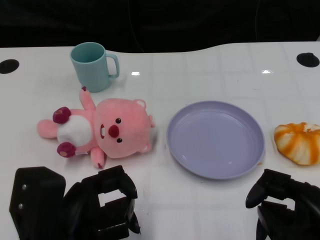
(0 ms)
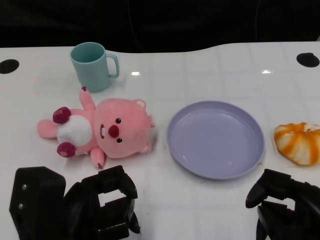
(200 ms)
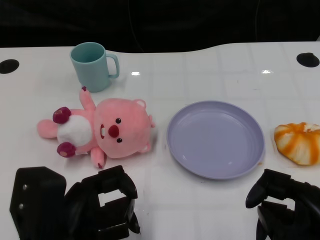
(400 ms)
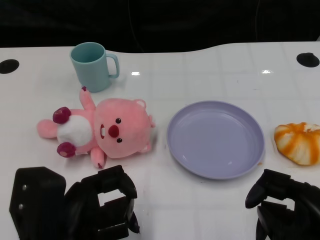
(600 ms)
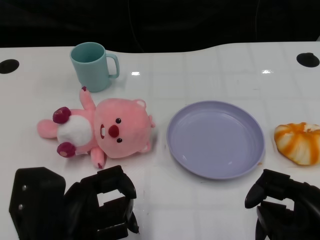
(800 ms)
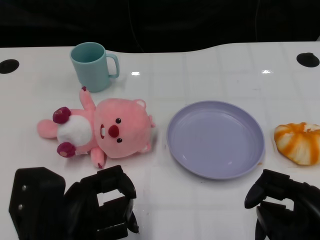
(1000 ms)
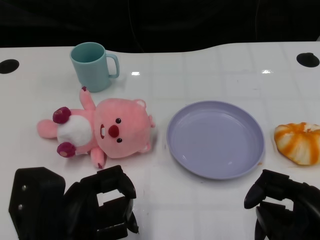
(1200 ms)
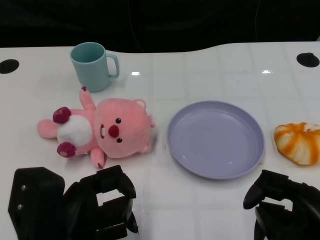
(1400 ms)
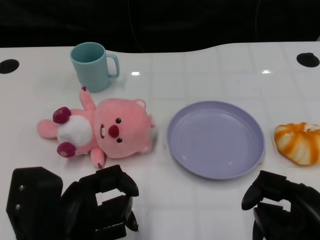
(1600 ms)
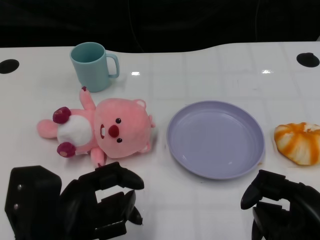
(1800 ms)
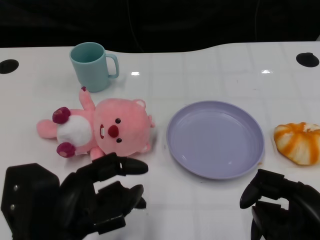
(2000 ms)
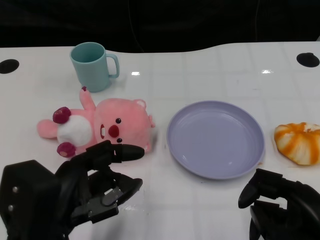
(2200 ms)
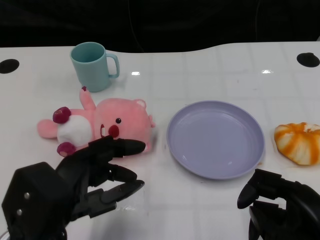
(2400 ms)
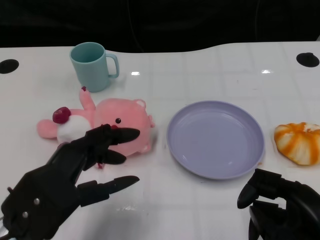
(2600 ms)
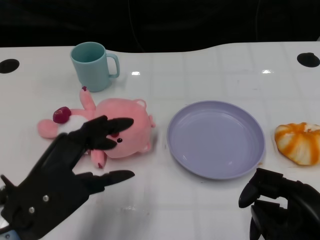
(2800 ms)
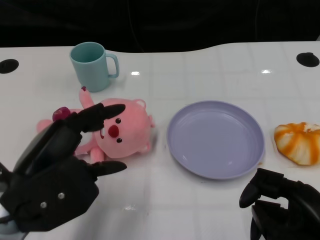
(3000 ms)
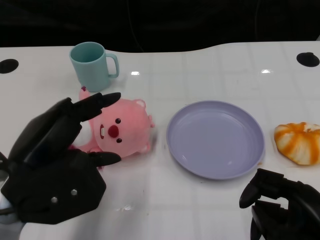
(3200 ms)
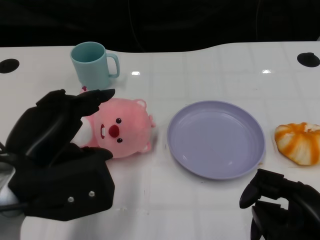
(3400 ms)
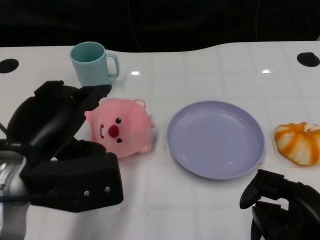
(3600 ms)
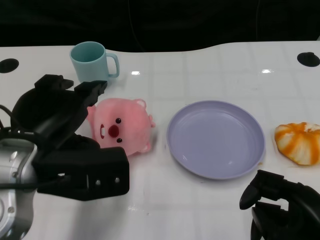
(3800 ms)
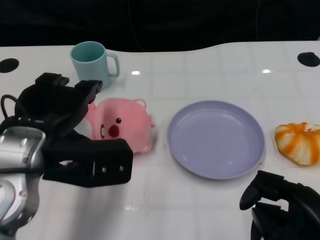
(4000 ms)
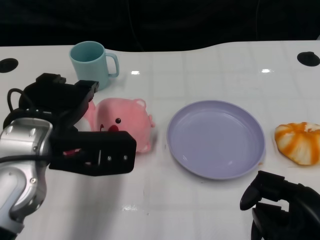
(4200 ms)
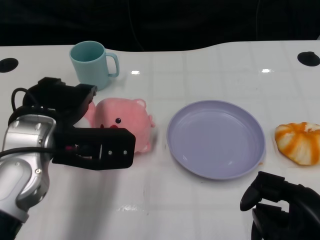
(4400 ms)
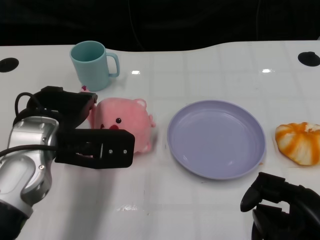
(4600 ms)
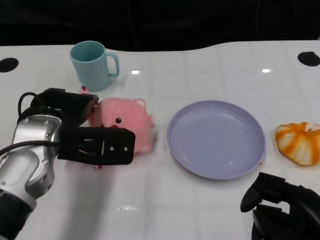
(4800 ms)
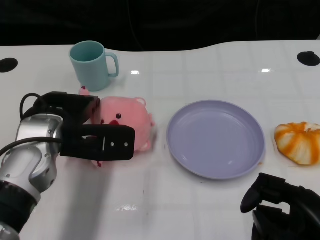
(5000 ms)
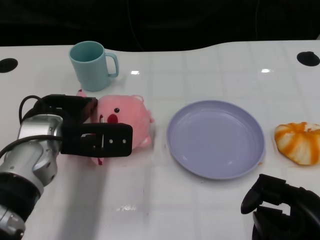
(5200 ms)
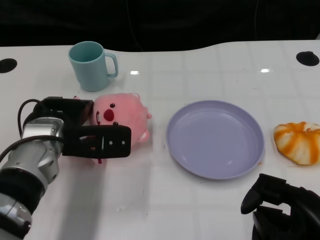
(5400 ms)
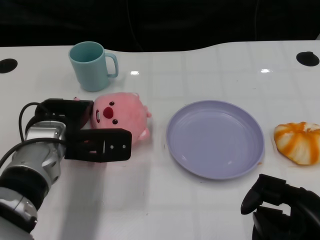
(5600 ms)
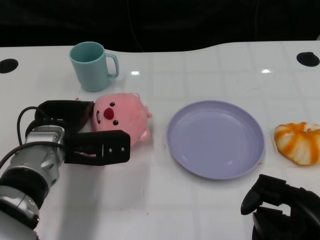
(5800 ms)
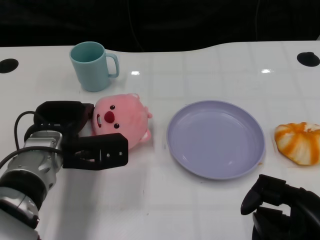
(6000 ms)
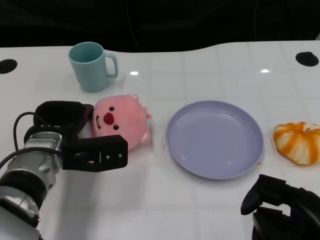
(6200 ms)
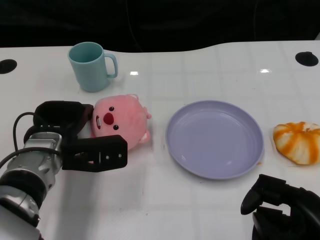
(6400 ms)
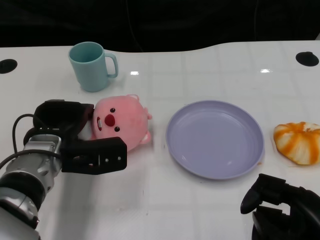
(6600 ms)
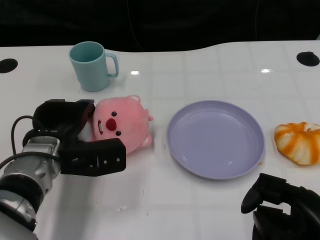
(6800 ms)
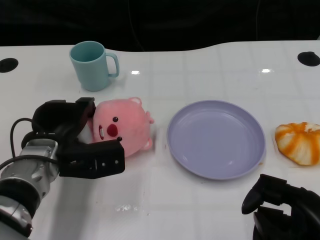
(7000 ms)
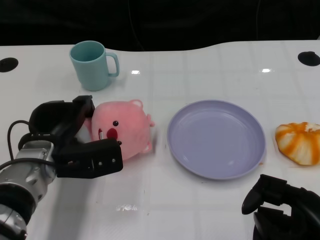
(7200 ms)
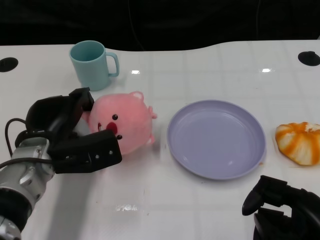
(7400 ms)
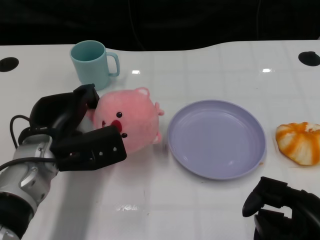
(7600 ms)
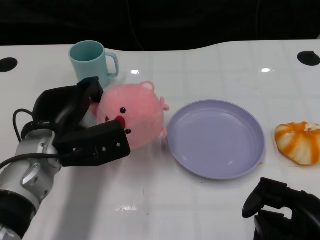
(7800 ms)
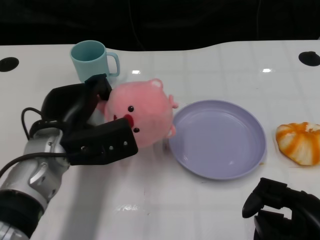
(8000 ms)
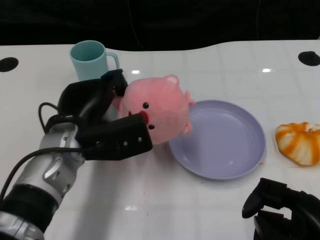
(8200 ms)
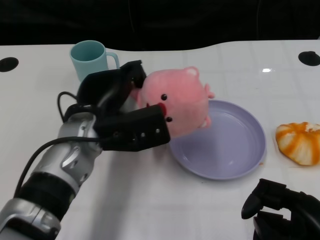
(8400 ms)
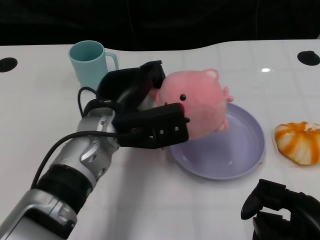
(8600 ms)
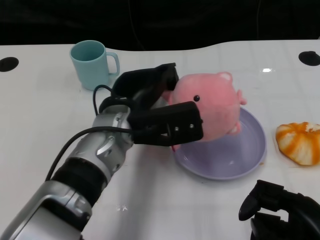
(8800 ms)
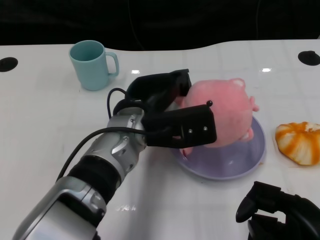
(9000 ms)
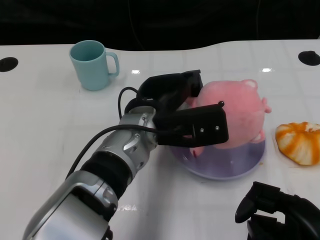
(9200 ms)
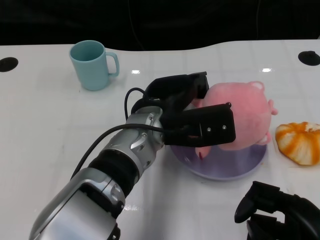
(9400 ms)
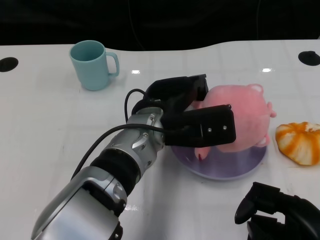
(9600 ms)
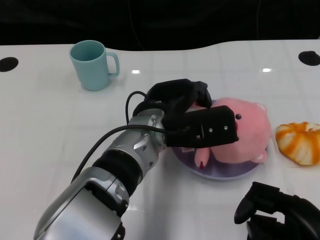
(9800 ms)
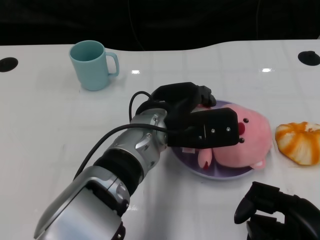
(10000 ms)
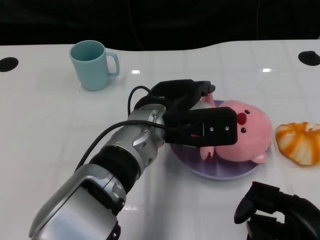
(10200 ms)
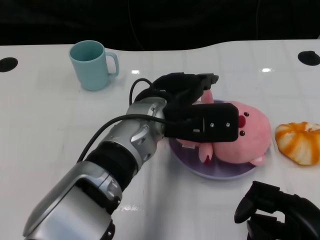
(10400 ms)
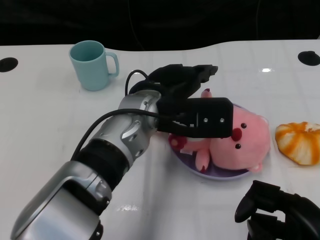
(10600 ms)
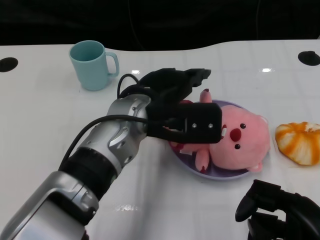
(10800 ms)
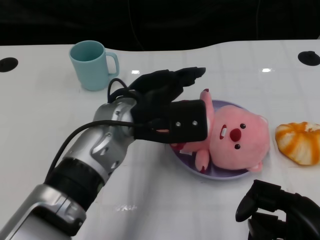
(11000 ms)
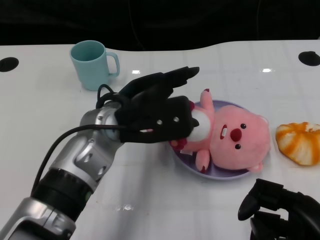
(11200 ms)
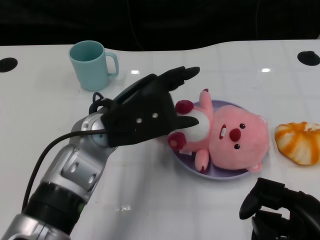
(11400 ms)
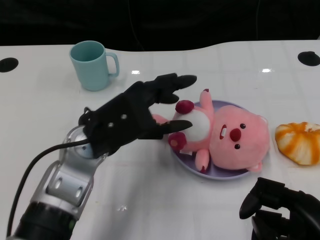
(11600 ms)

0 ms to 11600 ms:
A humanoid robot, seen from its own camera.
Task of the whole recording: Pick up the doll on one side of the plate and place it into the plate.
Step, 1600 ms to 7400 ms: Grasp the pink doll with the left gripper.
Step, 7800 ms to 10600 ms: Place the pink doll into the plate with the left gripper.
1400 ms to 2800 ms: The left hand changes place by some 5 cm.
2800 ms to 4400 ms: The left hand moves forward, roughly 10 cm.
4400 ms to 5800 ms: The left hand shifts about 10 cm downward.
5800 ms to 7200 ms: There are only small adjustments of the hands.
7200 ms to 8800 ms: The left hand heads to the right and upward, covering some 15 cm.
10200 ms to 11600 ms: The left hand shifts roughly 10 cm to the left.

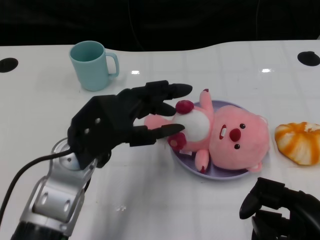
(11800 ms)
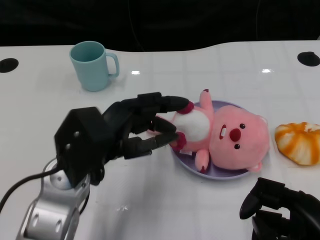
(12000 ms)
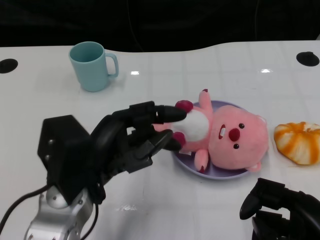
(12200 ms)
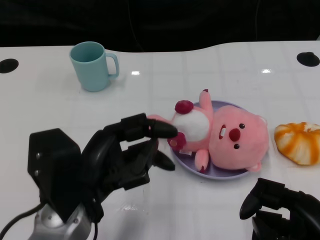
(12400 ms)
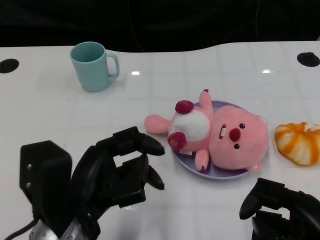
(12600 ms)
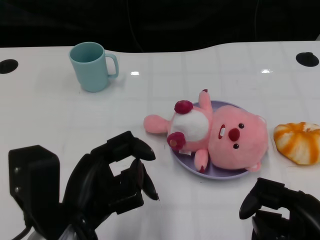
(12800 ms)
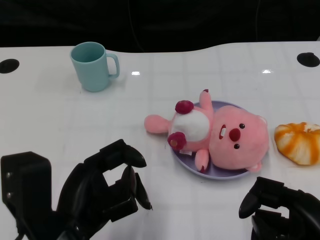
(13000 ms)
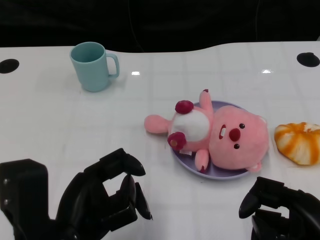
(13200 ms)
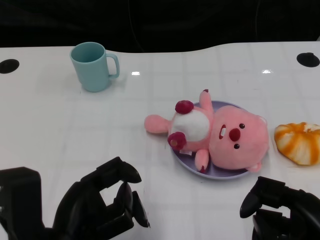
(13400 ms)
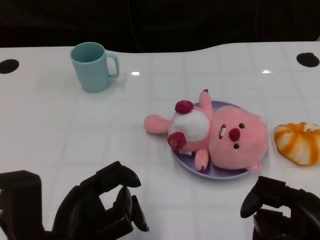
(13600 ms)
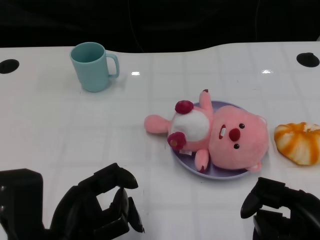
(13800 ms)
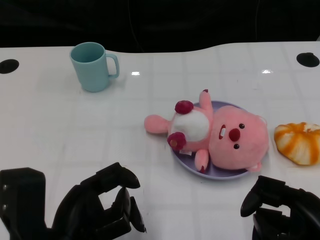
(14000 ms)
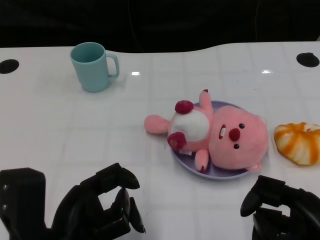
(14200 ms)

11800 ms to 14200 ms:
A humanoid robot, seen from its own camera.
Task of the whole recording: Pick up the doll on one side of the plate and place it into the plate.
11800 ms to 13000 ms: The left hand is displaced backward by about 10 cm.
13000 ms to 14200 ms: There are only small adjustments of the hands.

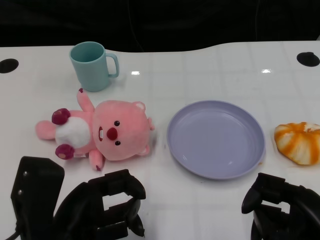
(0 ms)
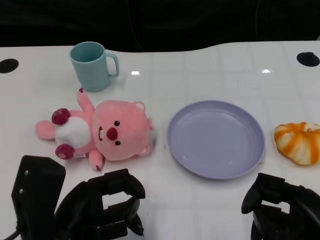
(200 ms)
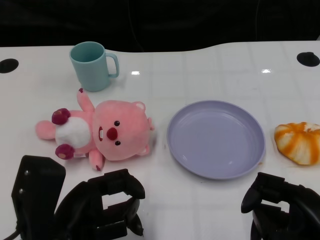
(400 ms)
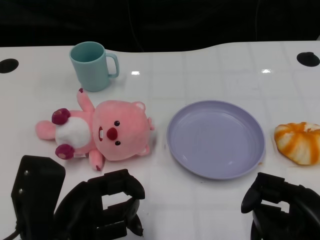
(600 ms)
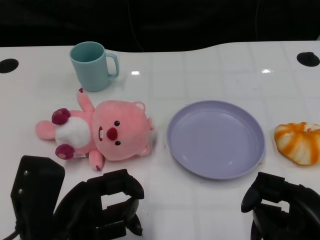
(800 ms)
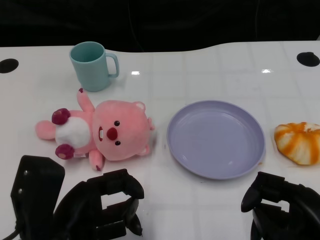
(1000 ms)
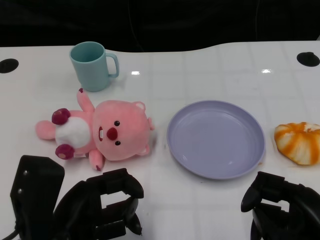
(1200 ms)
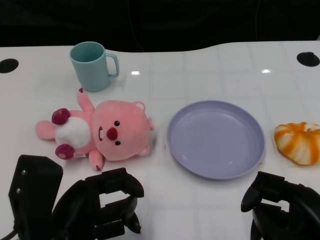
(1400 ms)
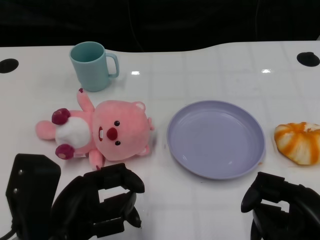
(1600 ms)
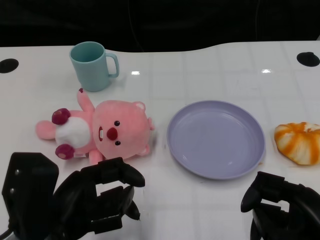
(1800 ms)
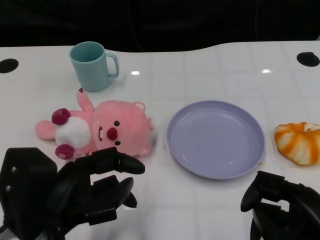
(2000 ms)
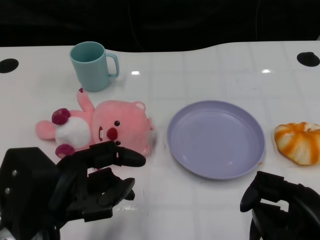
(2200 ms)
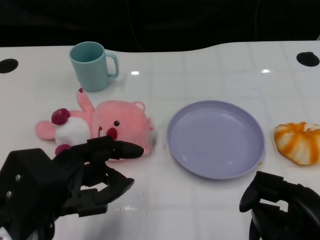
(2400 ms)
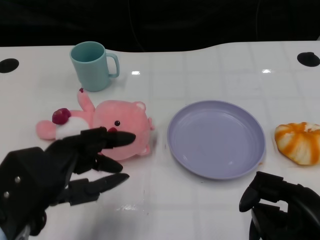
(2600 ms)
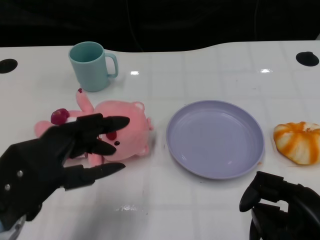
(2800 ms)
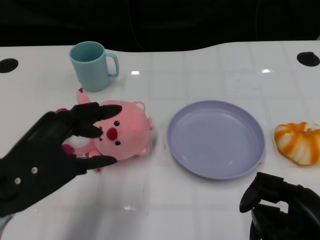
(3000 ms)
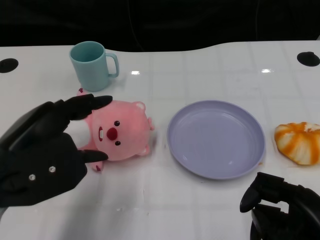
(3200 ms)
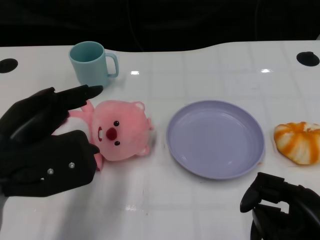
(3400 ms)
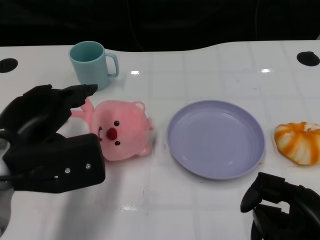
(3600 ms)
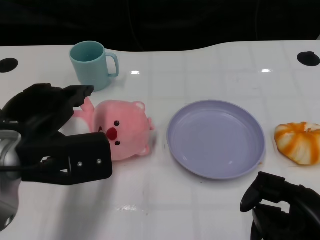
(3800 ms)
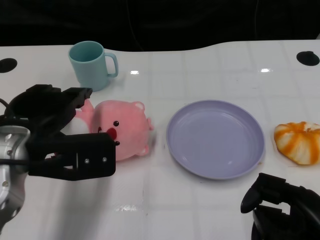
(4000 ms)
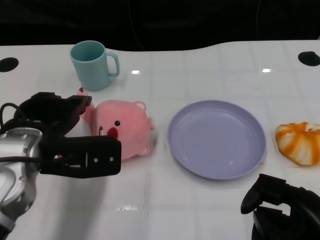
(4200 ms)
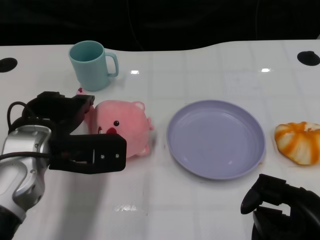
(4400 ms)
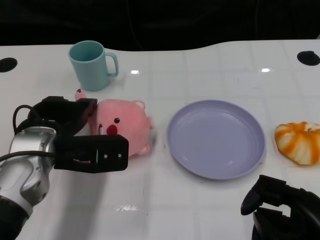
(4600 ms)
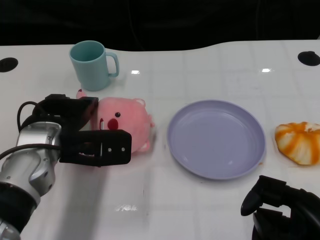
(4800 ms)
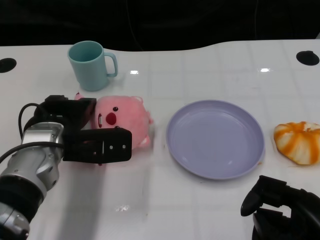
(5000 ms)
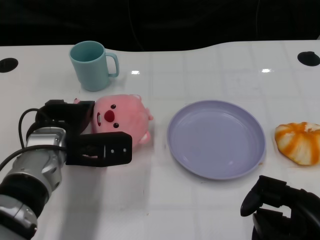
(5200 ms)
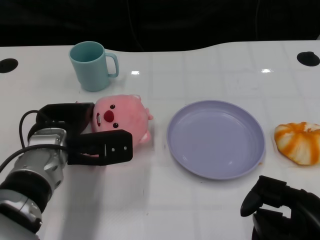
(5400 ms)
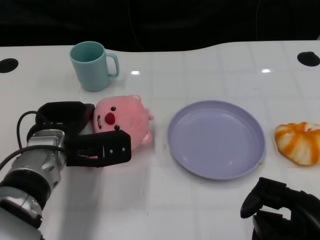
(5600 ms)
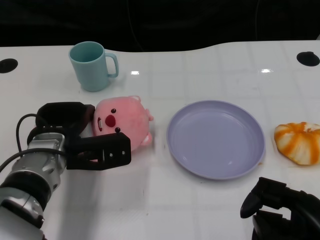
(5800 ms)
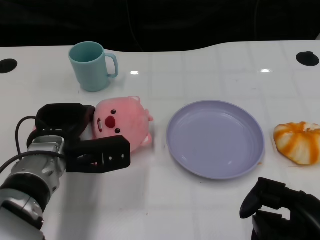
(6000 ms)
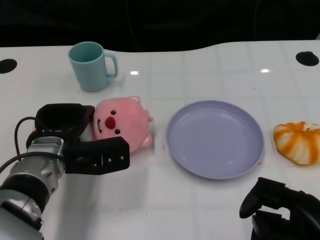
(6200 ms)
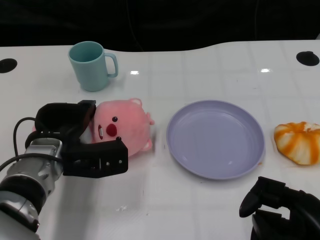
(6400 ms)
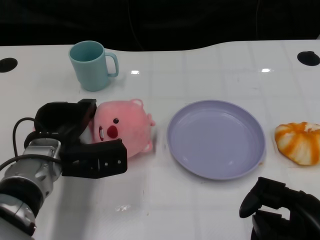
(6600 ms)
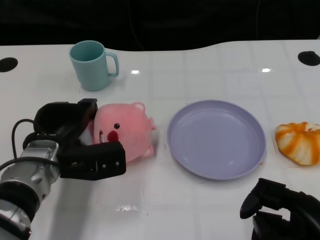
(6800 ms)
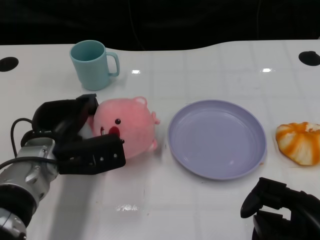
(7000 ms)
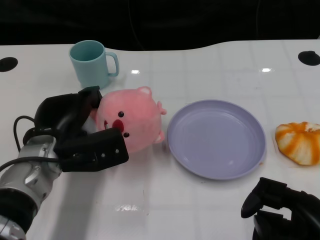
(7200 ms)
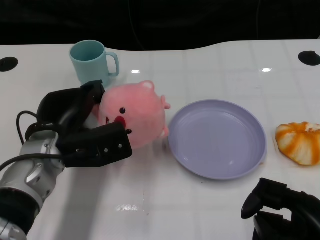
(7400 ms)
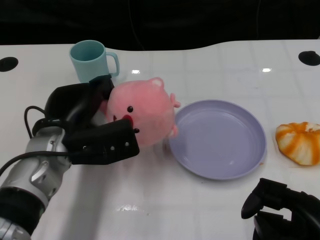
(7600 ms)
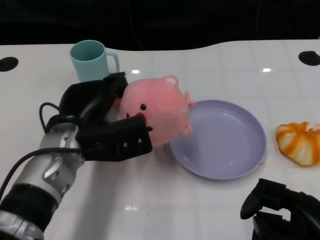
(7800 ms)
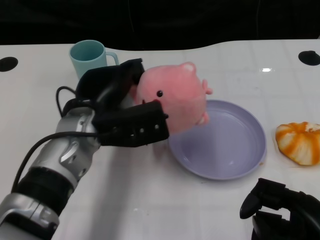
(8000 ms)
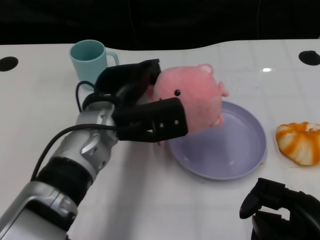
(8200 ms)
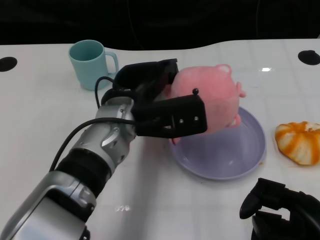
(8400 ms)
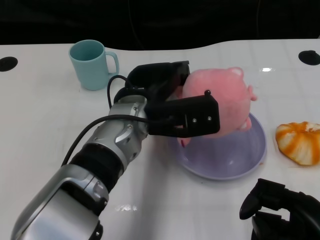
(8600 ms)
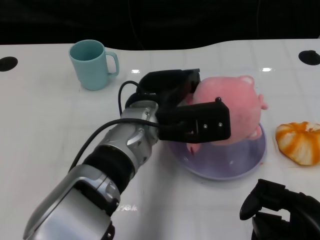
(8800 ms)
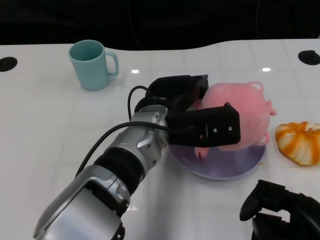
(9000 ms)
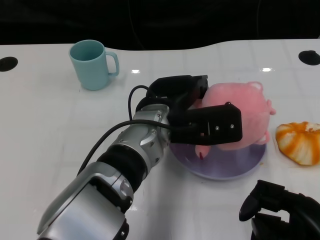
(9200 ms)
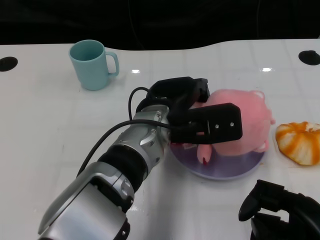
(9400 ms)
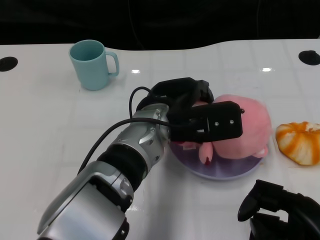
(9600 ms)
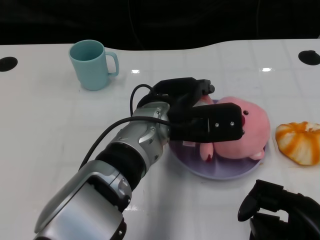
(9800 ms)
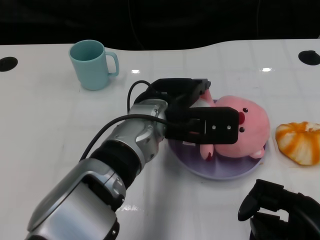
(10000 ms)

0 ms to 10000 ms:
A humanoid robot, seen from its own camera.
Task of the whole recording: Pick up the doll on one side of the plate and place it into the plate.
Step, 1400 ms to 7200 ms: Grasp the pink doll with the left gripper.
1400 ms to 2800 ms: The left hand shifts by approximately 5 cm.
2800 ms to 4200 ms: The left hand goes some 10 cm forward.
4200 ms to 5800 ms: The left hand heads downward, covering about 5 cm.
7200 ms to 8600 ms: The left hand heads to the right and upward, covering about 15 cm.
